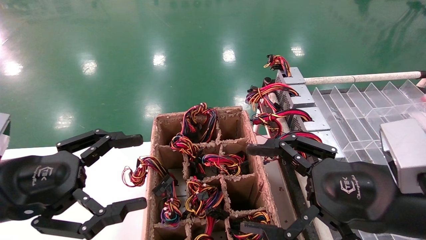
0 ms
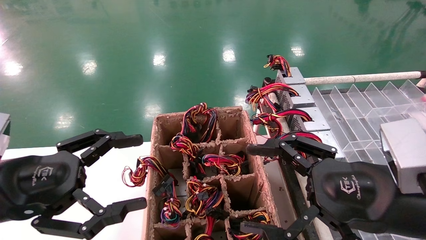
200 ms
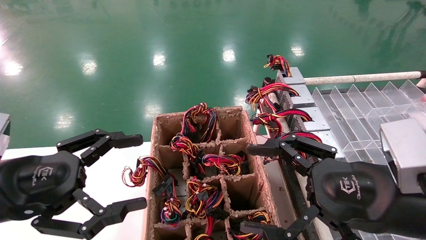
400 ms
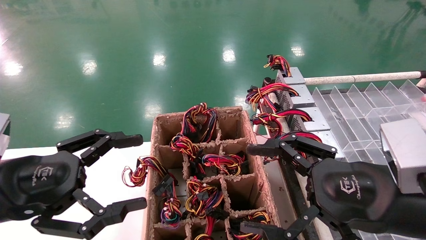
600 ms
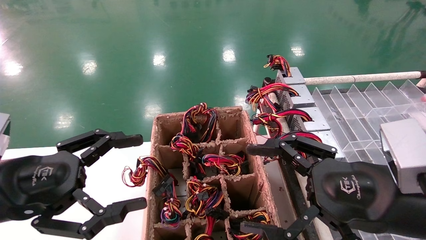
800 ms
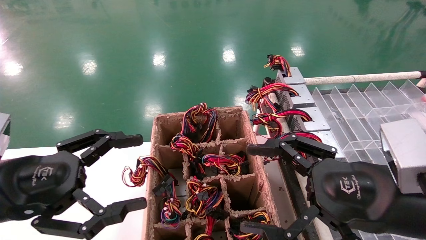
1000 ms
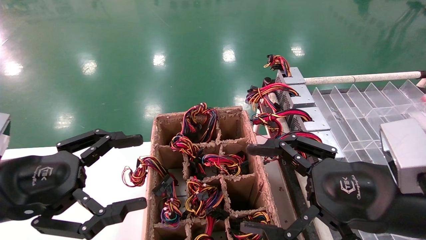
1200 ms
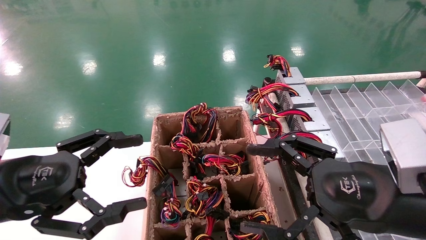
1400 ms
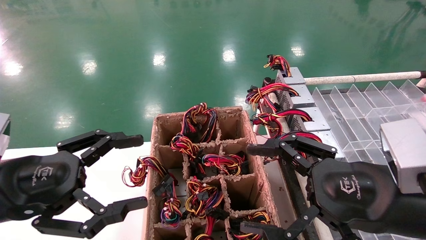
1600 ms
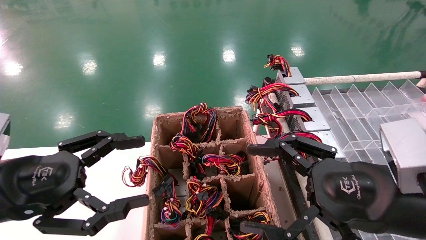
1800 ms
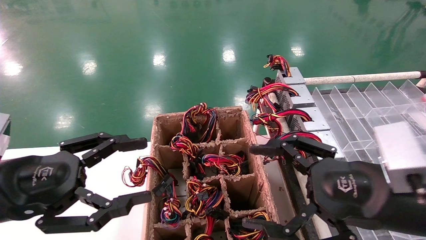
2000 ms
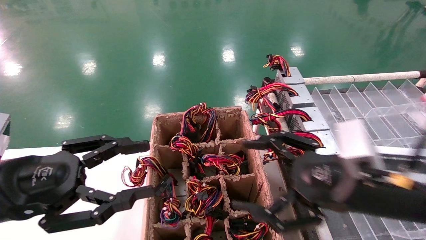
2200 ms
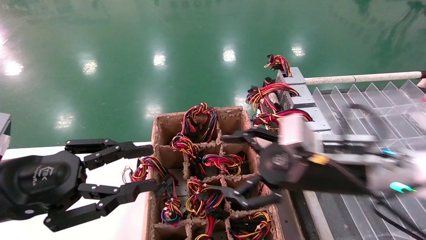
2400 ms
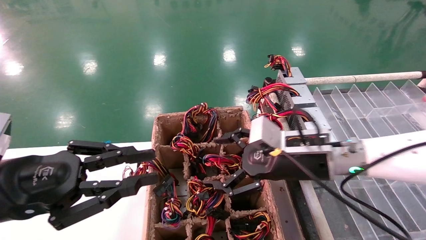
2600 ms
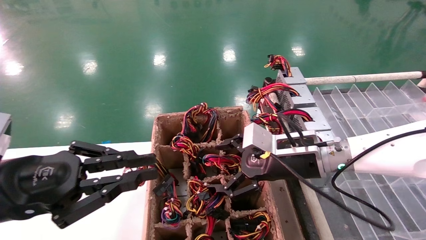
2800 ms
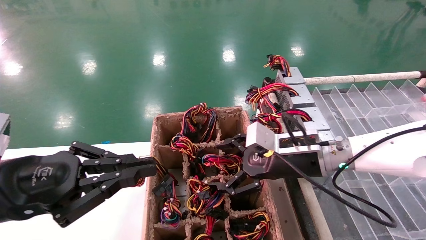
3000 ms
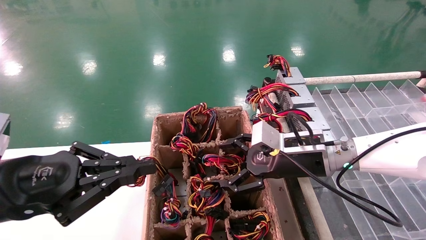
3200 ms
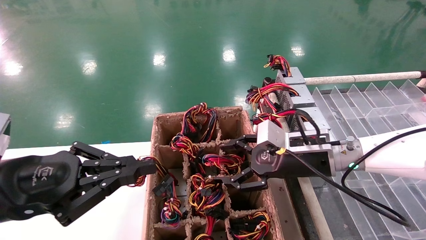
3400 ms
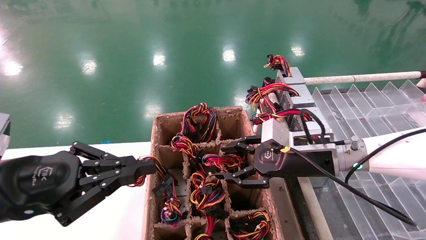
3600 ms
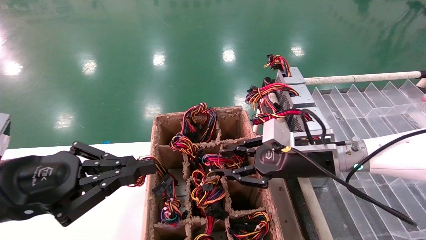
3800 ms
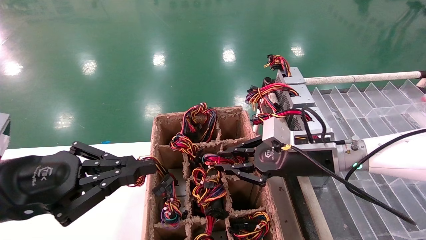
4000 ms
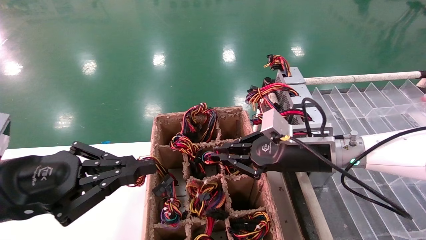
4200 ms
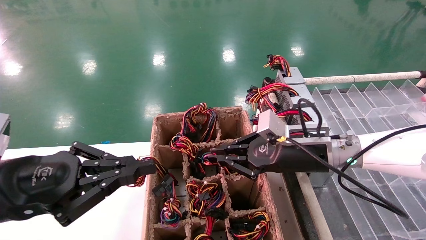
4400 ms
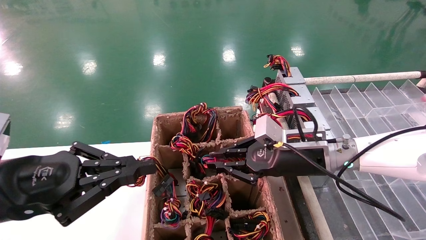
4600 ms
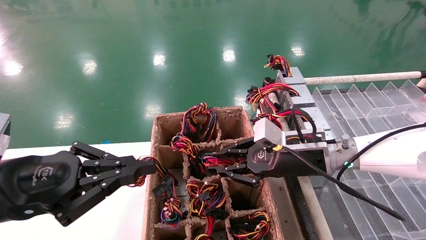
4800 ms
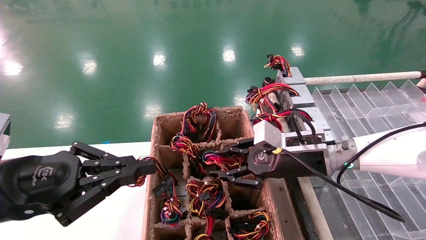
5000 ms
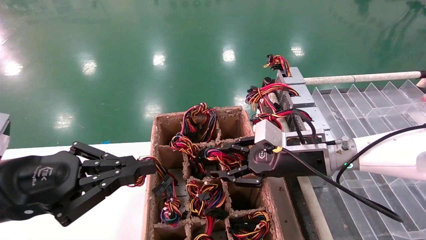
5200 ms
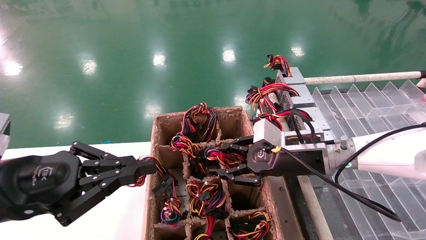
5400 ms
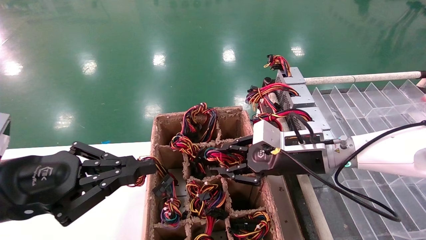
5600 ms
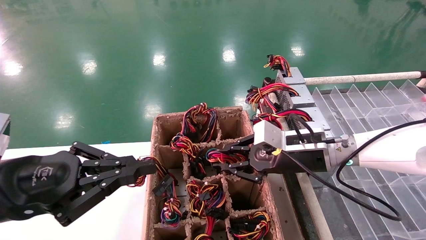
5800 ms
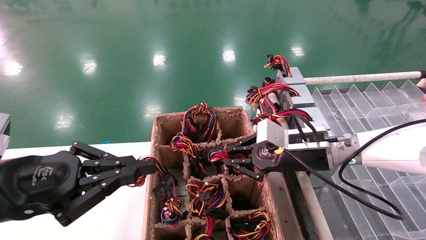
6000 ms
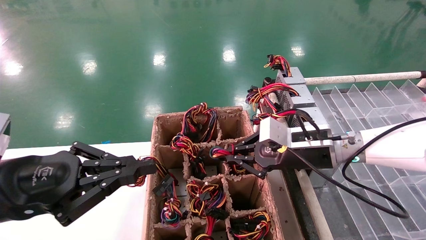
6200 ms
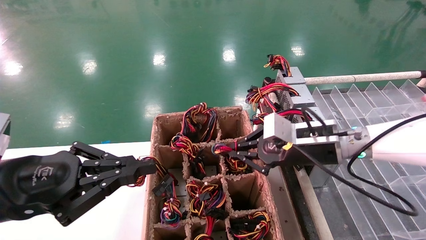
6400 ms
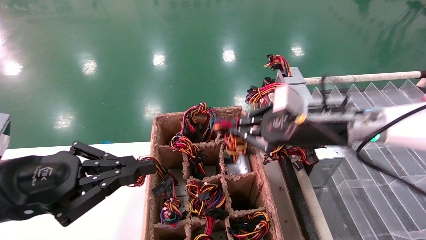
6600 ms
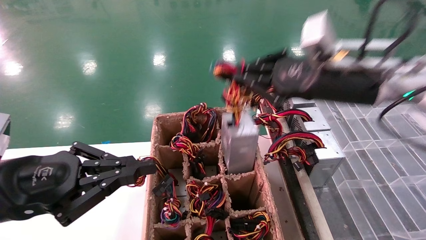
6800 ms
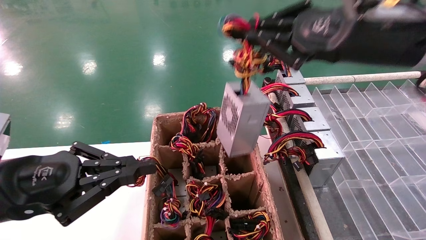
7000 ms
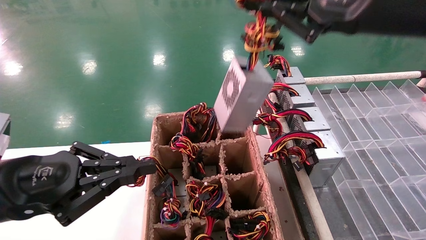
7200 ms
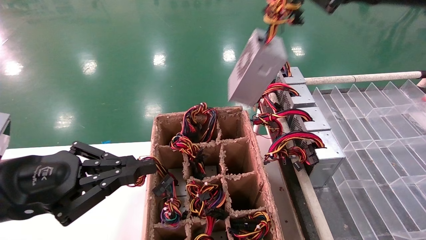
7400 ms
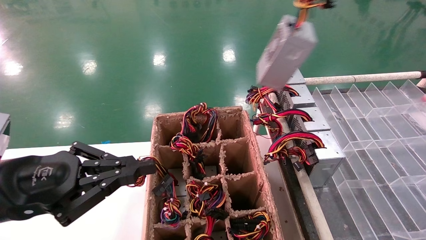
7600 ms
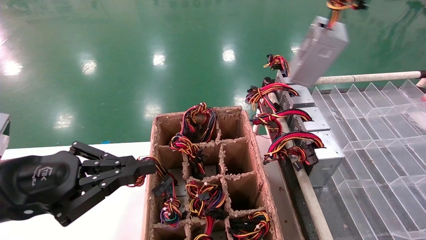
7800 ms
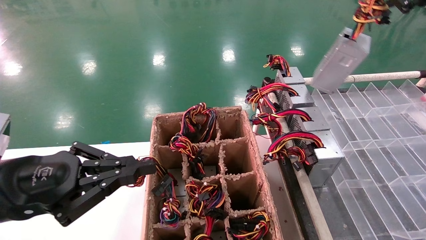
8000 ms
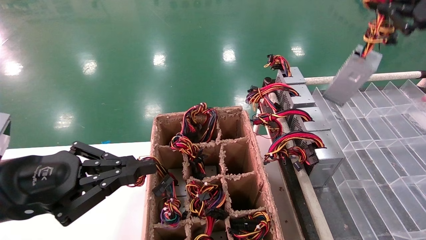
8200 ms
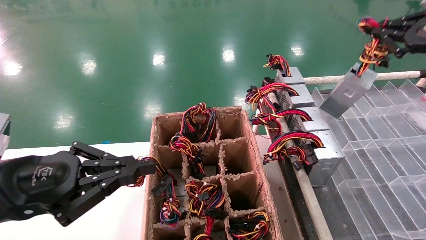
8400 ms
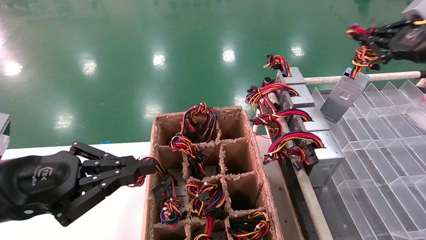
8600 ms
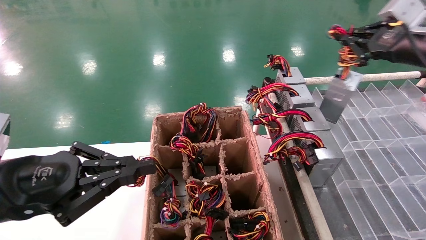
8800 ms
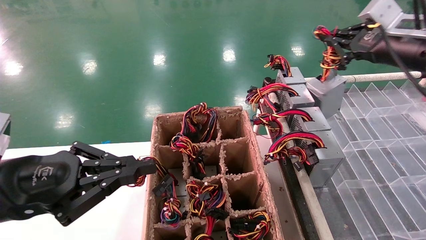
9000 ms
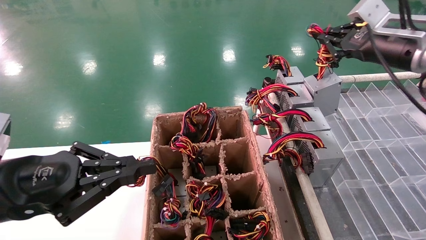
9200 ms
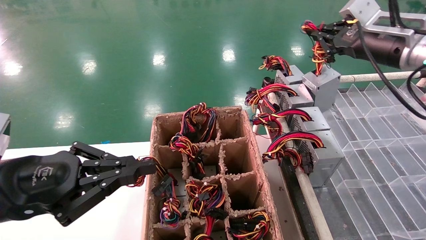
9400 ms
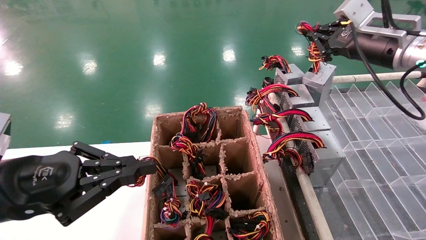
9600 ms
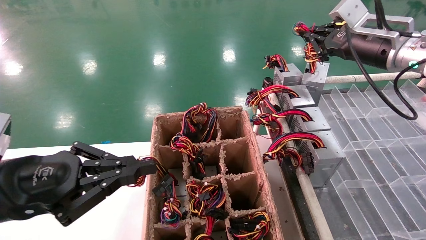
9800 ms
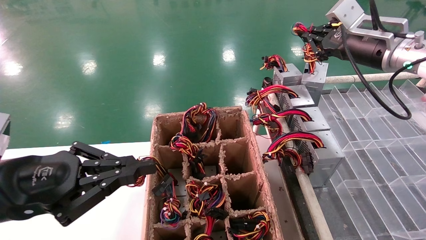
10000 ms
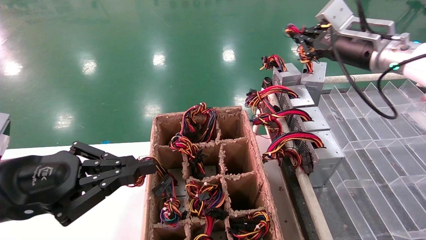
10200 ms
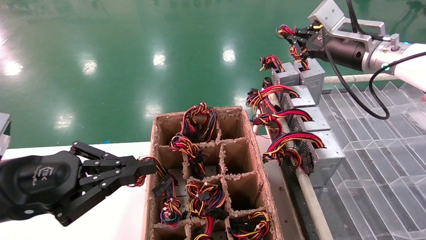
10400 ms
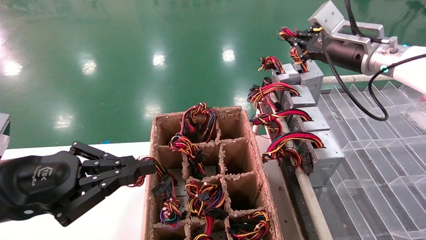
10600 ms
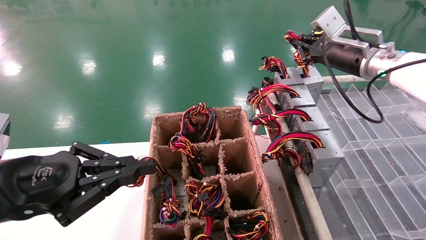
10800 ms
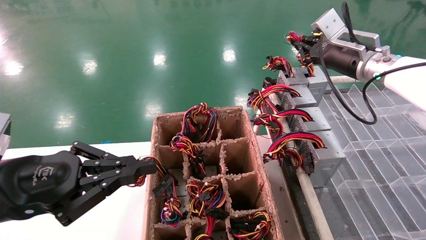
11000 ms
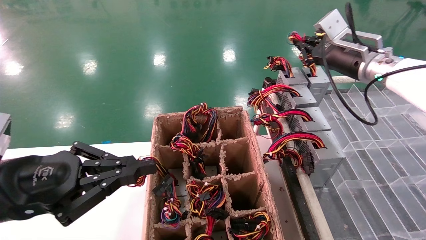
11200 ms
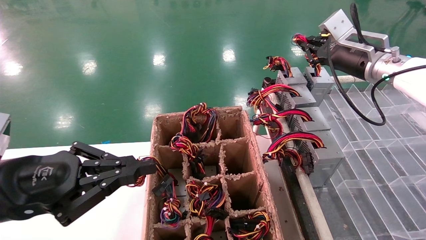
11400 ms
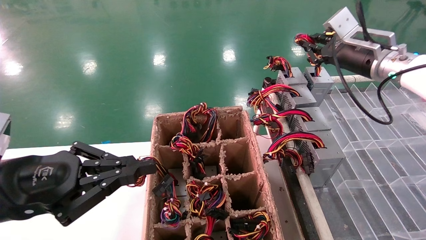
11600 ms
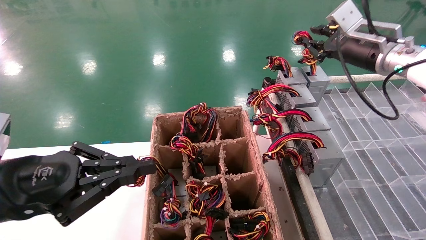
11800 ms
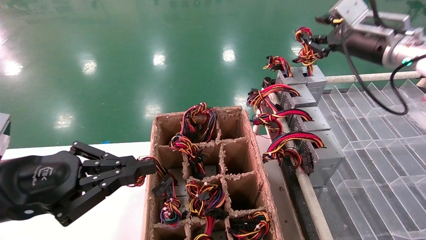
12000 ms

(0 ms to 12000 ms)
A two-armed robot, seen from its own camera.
Step, 2200 ms - 6200 ms: Grab the main unit power supply from the containment box.
0 ms - 1600 ms: The two grippers keep their place.
1600 ms - 3000 ms: The left gripper closes up; the right gripper heads forward, covering about 15 cm.
3000 ms - 4400 ms: The right gripper closes up.
4400 ms - 6000 ms: The grippers stay close to where they were, moving slightly.
6000 ms - 7600 ms: The right gripper travels upward and to the right by some 30 cm.
7600 ms - 9000 ms: The right gripper goes about 15 cm forward, downward and to the right.
9000 ms - 10400 ms: The right gripper heads to the left, covering roughly 5 cm.
10400 ms - 12000 ms: The grippers stay close to where they were, moving slightly.

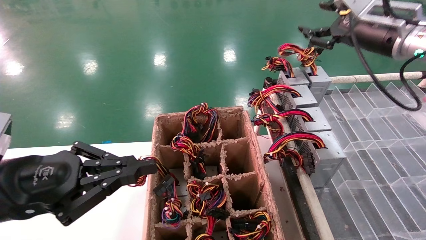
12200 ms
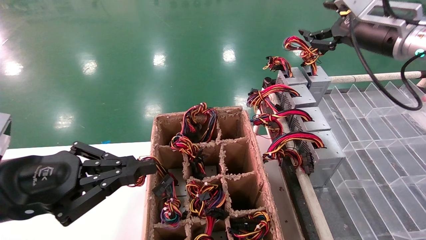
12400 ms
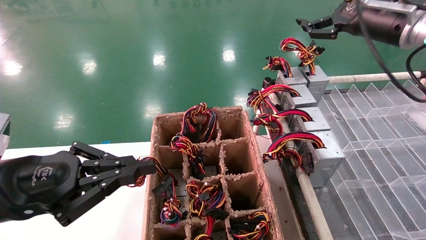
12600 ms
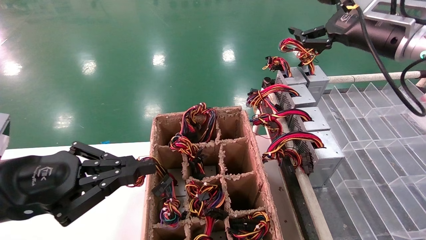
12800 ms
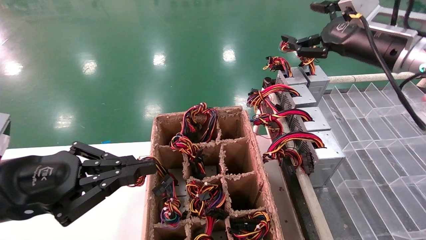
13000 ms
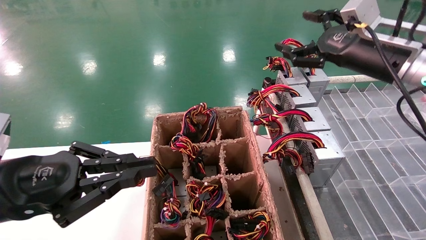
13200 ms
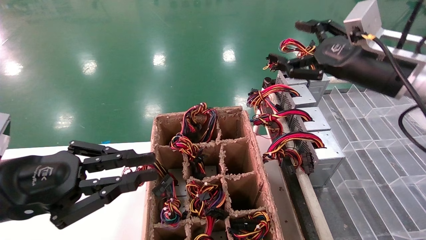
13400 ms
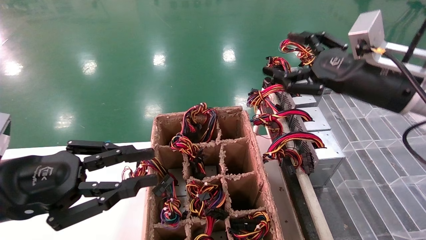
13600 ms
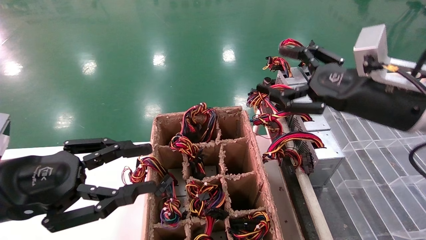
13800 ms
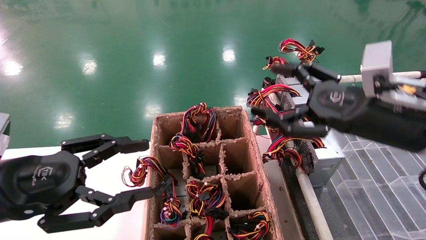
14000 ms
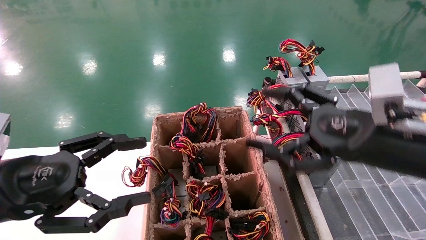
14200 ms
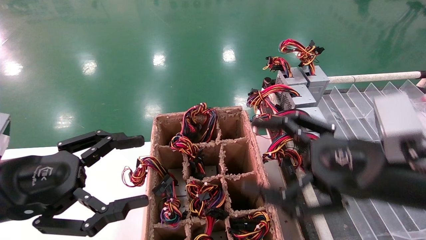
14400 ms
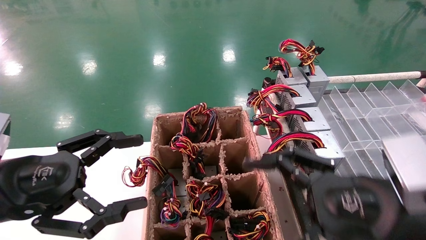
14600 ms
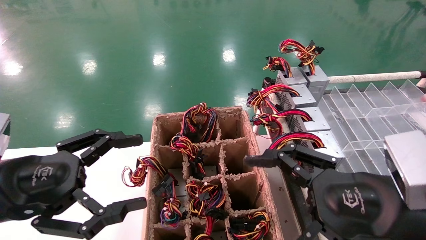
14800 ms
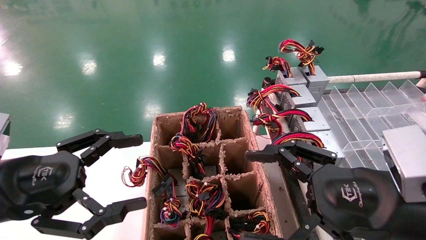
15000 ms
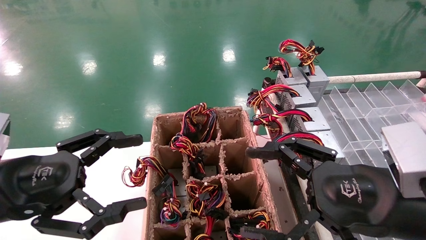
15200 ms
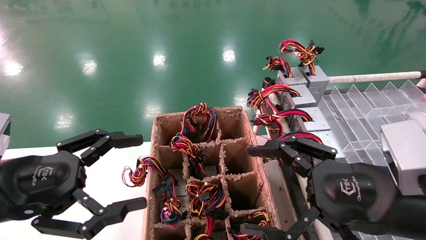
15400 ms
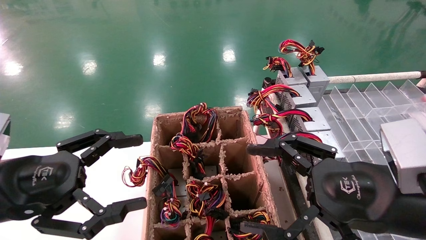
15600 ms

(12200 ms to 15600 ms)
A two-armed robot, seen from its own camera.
12200 ms - 13800 ms: The right gripper heads backward, downward and to the left, covering approximately 15 cm, and opens its fingers; the left gripper opens its fingers.
13800 ms - 15600 ms: The right gripper heads backward and downward, covering about 15 cm. The left gripper opens its fingers.
